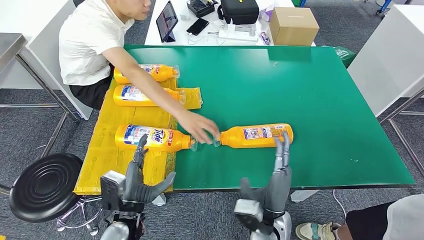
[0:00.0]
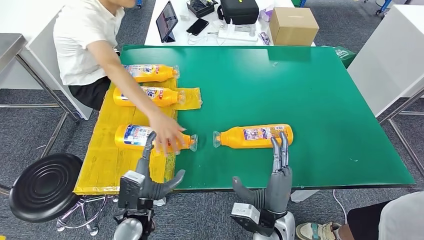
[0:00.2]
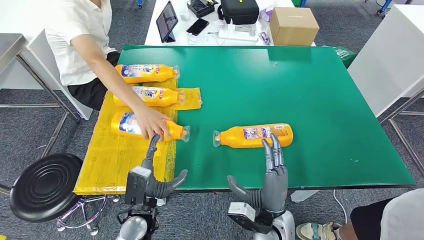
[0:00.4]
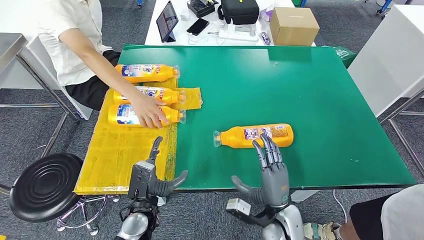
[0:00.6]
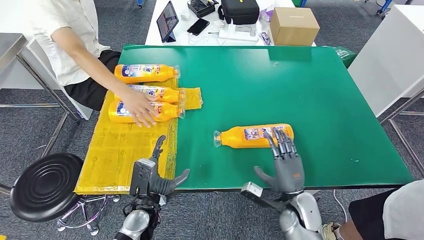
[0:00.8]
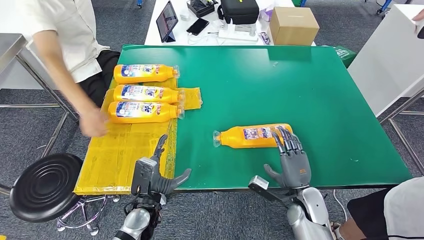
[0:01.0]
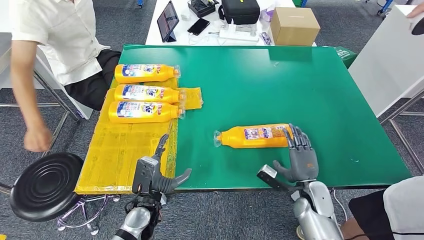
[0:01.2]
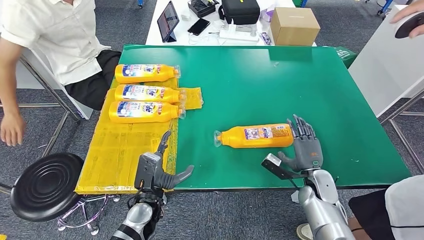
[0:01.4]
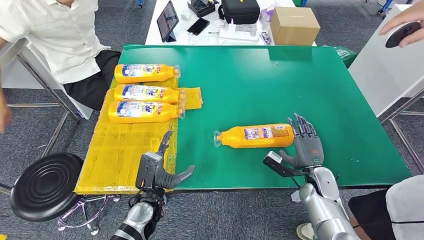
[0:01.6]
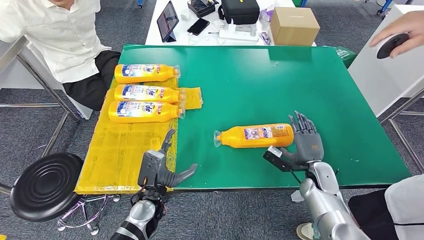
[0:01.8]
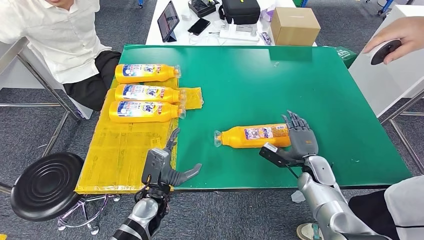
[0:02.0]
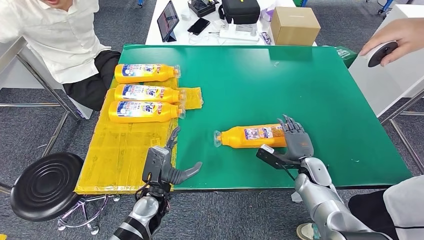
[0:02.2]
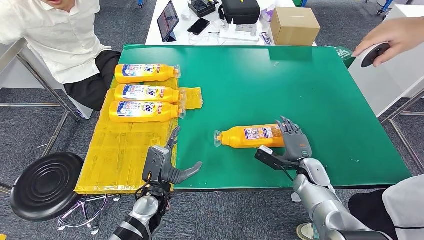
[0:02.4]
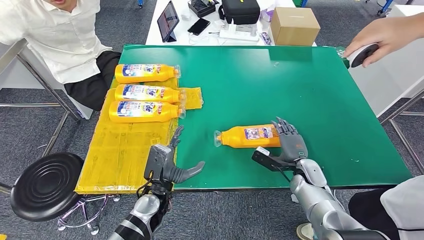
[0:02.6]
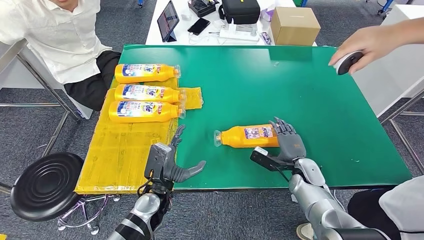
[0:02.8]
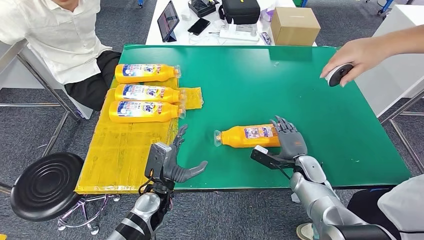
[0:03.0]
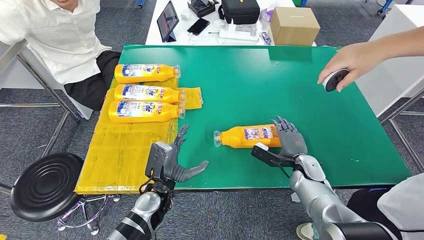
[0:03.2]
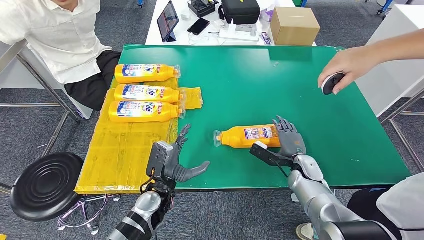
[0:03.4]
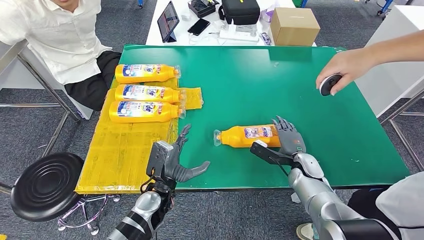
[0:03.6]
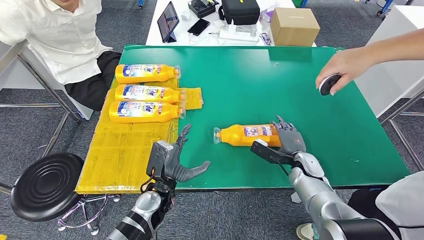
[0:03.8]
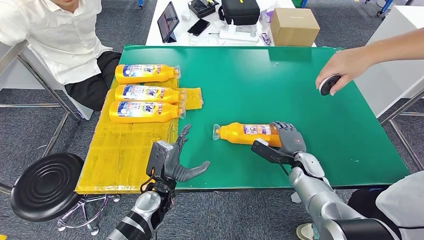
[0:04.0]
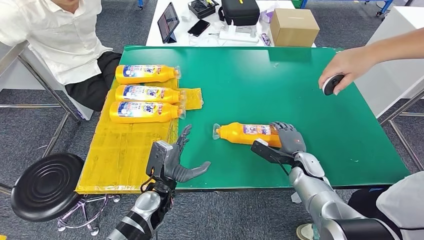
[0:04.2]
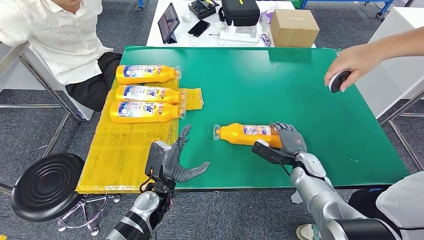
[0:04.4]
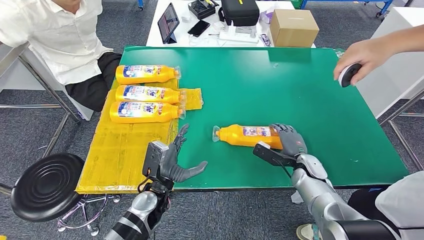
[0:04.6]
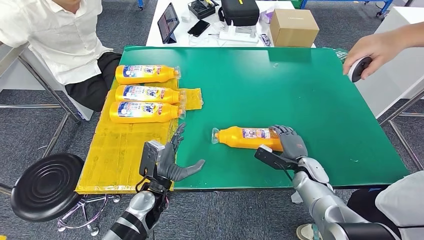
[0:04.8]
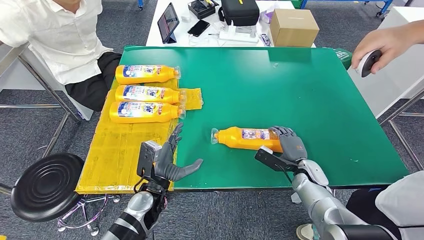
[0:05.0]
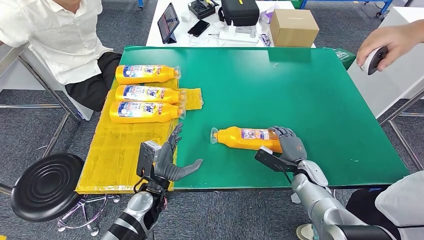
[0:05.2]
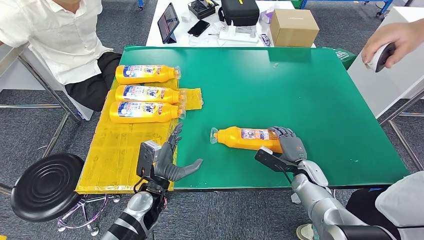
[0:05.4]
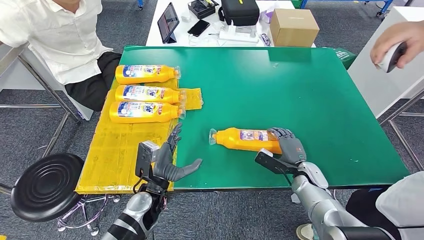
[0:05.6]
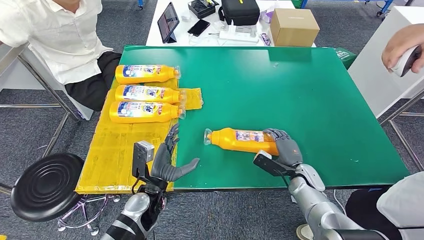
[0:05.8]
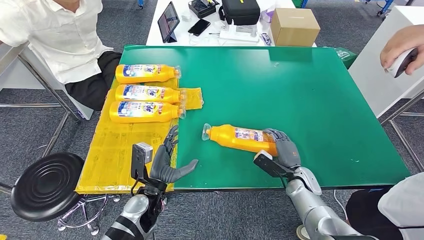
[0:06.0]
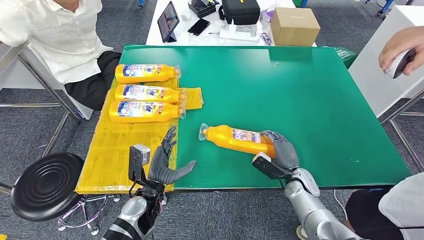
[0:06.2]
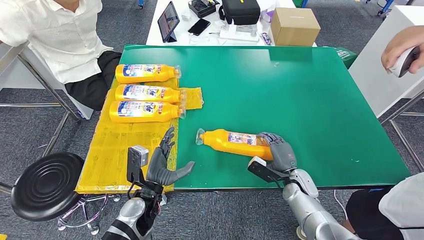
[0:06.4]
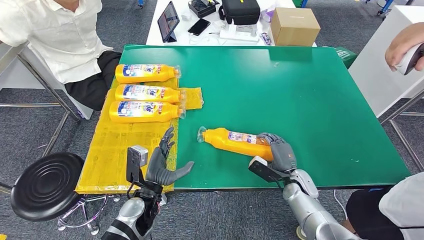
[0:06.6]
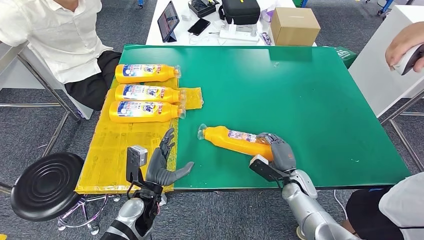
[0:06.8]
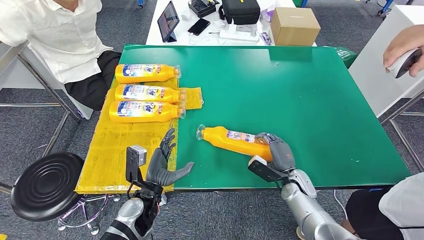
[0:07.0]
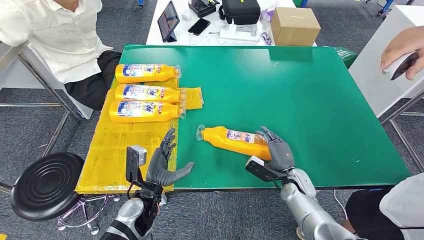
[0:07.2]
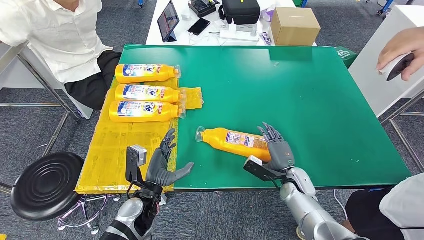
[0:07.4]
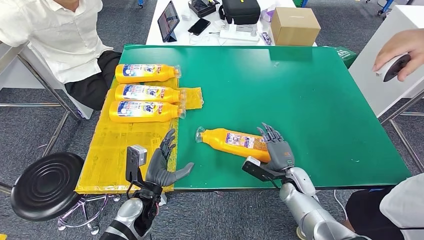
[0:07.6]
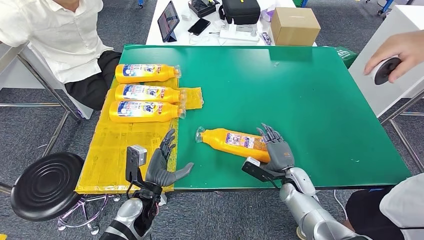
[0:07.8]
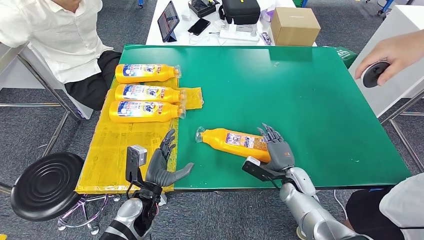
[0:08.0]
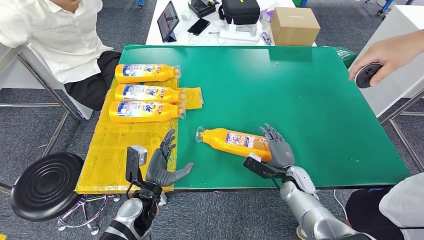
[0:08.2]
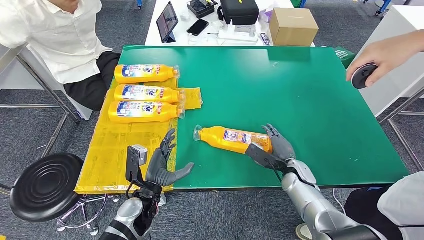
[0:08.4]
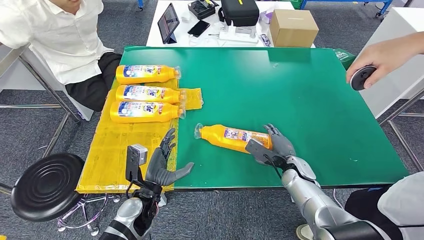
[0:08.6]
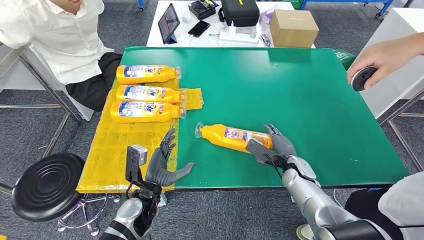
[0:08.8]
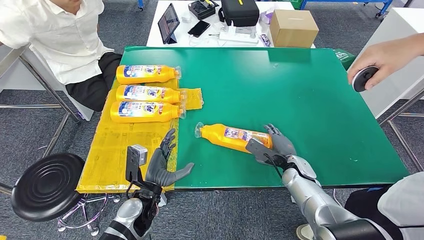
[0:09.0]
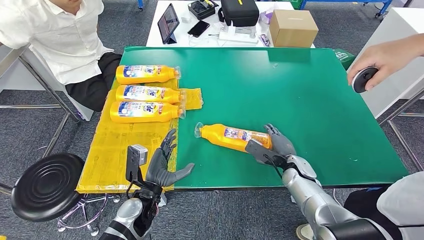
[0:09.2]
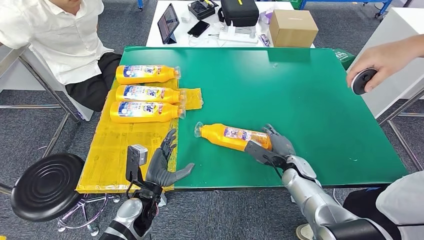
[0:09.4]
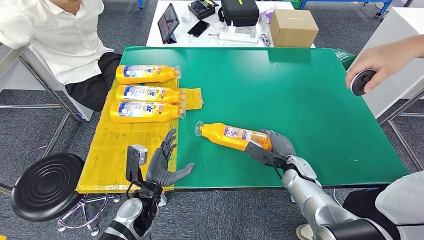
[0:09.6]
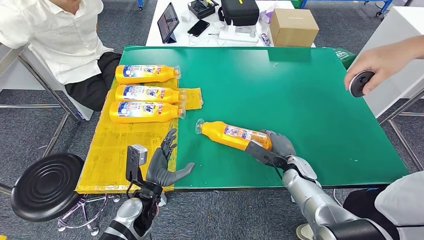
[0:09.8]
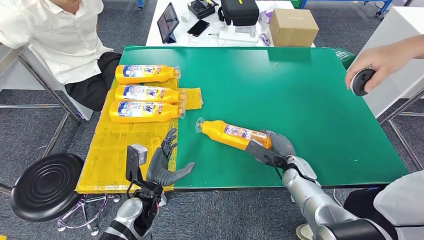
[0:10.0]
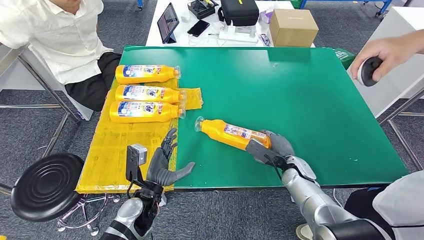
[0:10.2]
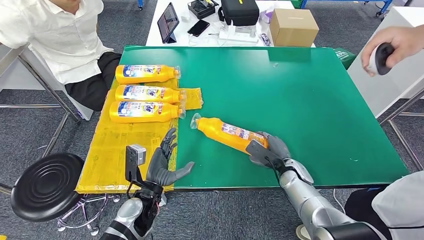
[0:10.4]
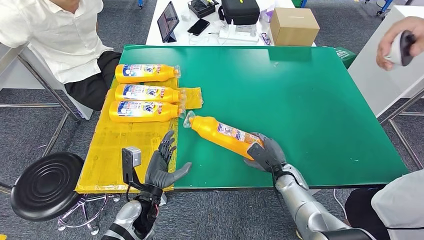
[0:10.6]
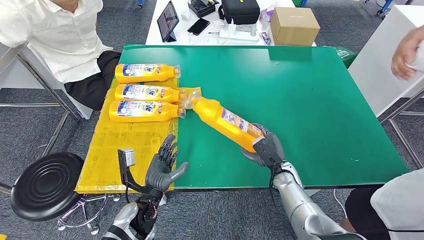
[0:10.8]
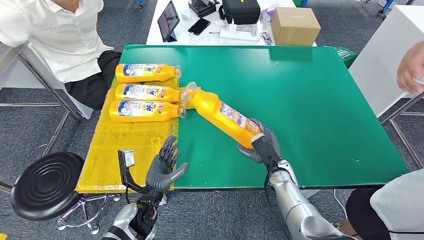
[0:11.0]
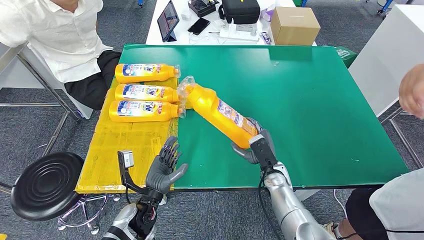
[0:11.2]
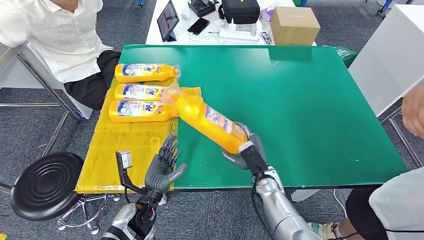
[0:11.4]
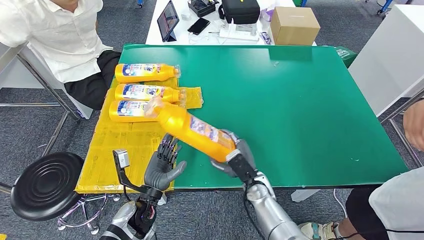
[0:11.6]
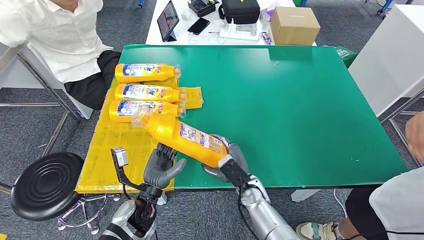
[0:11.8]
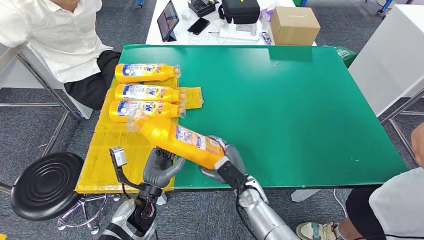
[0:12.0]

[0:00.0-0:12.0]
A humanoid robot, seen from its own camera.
Step, 0:00.0 to 0:06.8: Pick up the bottle from the table.
0:01.6 to 0:03.0: There are only small adjustments of the hands.
0:03.0 to 0:04.4: The hands make only small movements.
0:06.0 to 0:07.6: The hands stay close to where they were, moving slightly.
0:09.0 to 0:10.4: The hands move only a little.

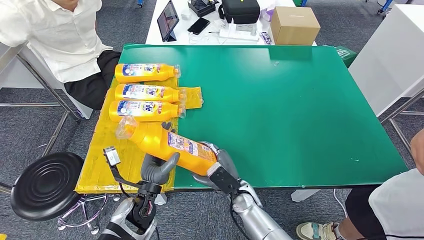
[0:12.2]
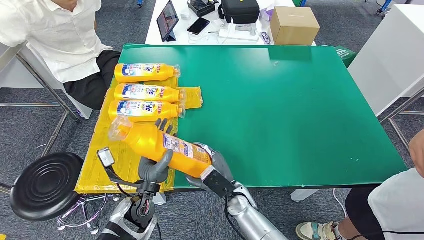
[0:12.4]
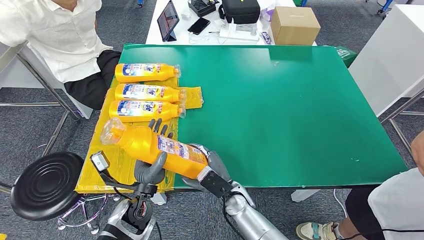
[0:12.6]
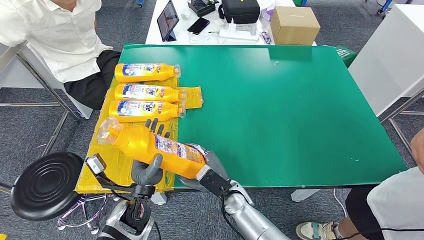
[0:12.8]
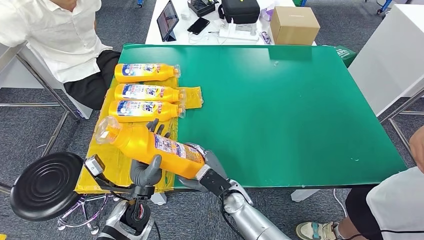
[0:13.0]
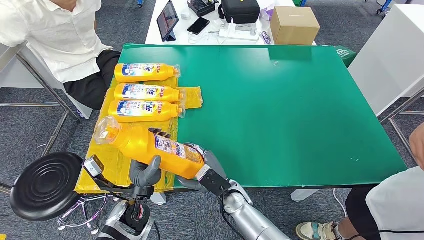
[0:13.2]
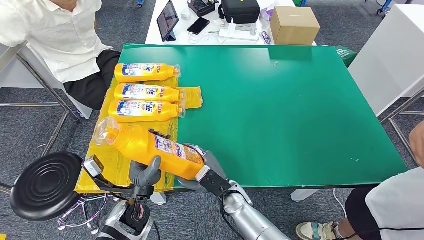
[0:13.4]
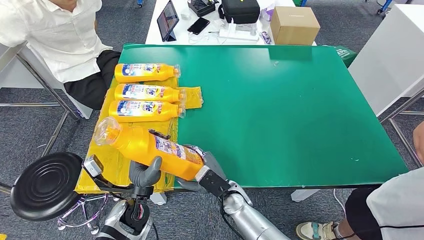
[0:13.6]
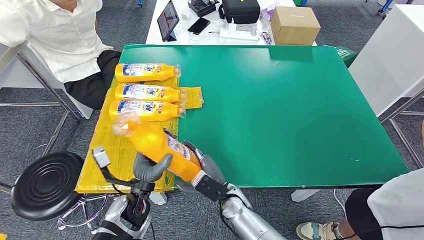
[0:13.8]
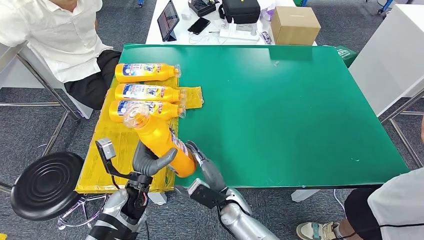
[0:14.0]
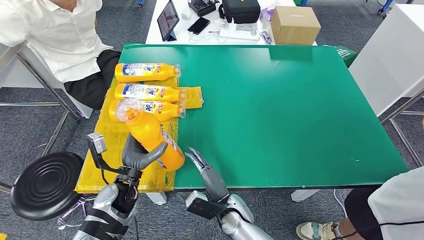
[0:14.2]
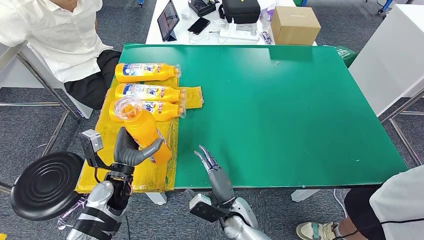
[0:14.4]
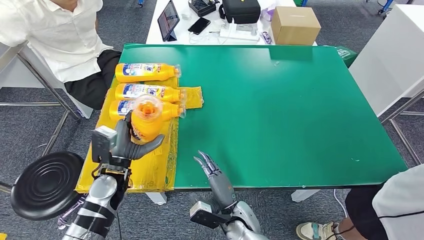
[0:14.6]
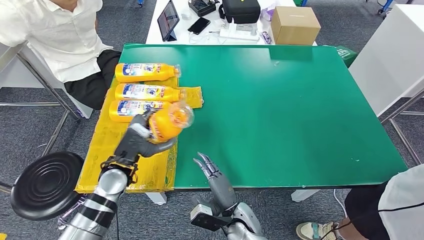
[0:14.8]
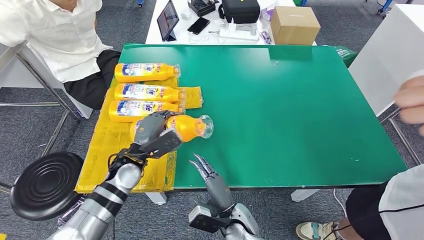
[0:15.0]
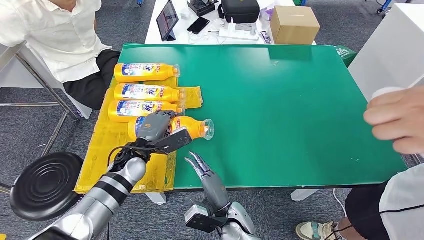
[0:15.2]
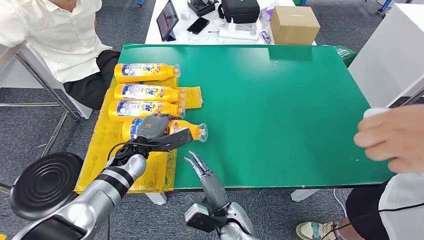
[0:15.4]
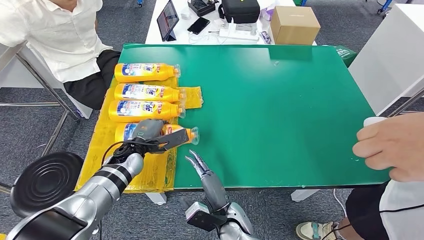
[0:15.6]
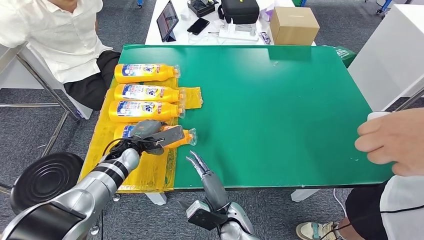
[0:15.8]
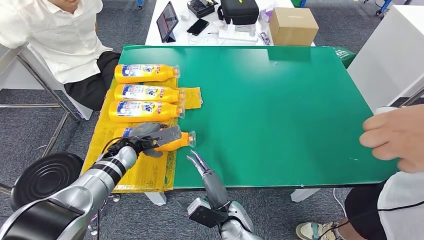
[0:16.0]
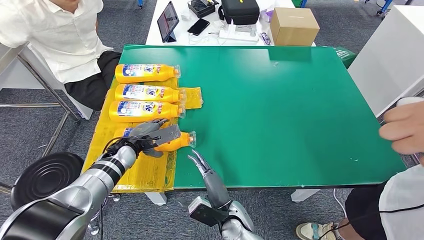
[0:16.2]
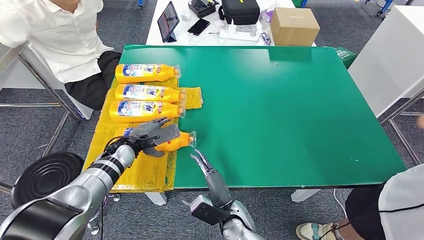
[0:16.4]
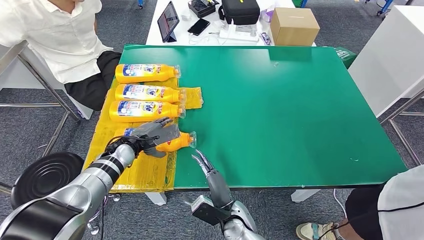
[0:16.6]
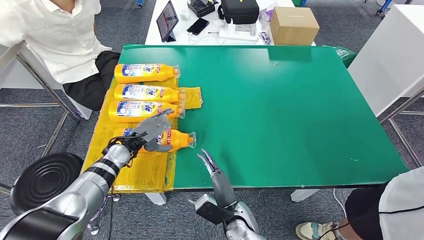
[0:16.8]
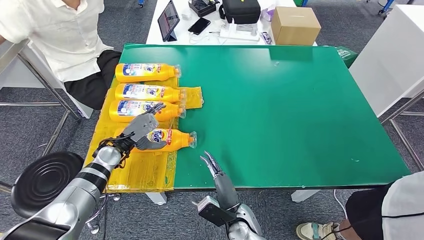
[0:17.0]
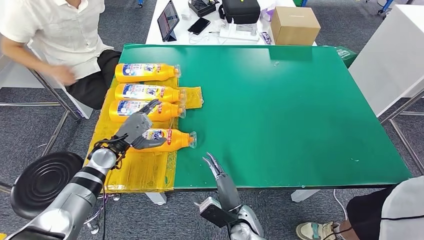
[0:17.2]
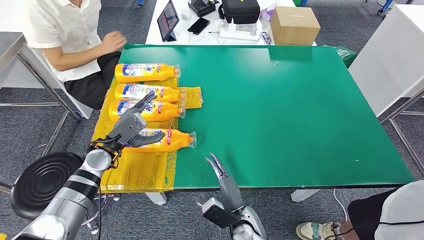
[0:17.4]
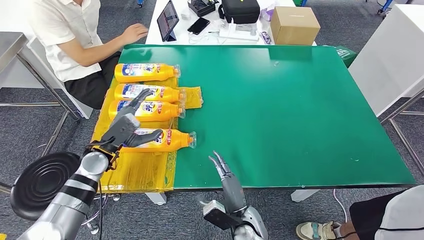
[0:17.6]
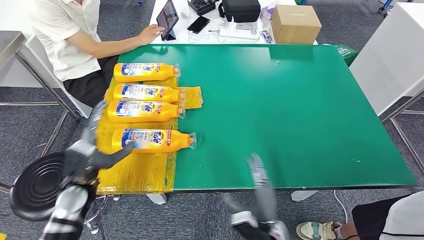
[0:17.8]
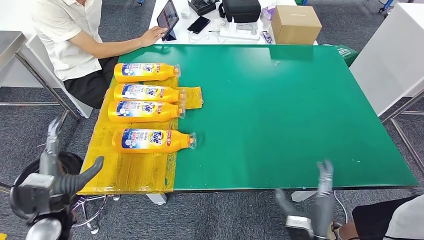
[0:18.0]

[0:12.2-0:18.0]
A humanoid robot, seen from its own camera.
Step, 0:13.0 to 0:18.0: Flip the bottle to face forward.
0:12.2 to 0:13.6: The hands move only a little.
0:13.6 to 0:15.0: The right hand is displaced backward by approximately 5 cm, while the left hand heads forward, covering some 10 cm.
0:15.0 to 0:16.6: The left hand is displaced forward and to the left by about 10 cm.
